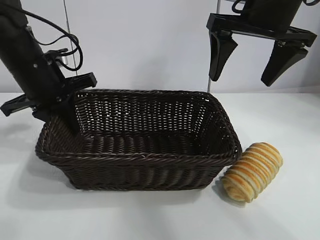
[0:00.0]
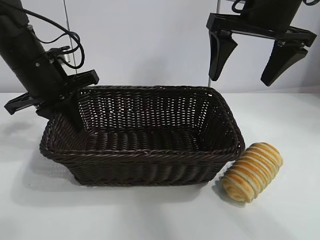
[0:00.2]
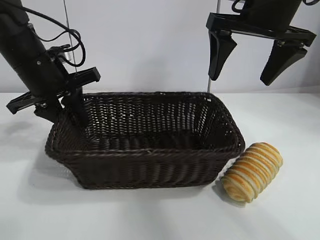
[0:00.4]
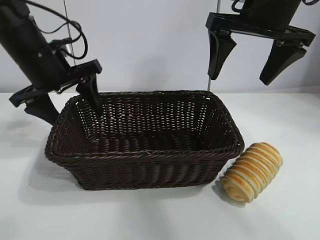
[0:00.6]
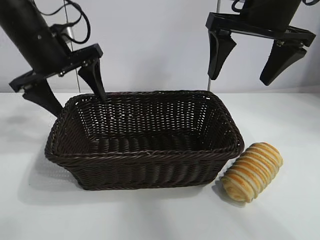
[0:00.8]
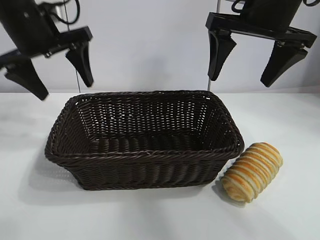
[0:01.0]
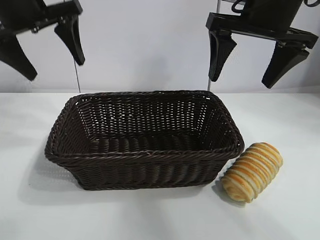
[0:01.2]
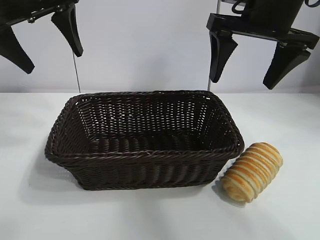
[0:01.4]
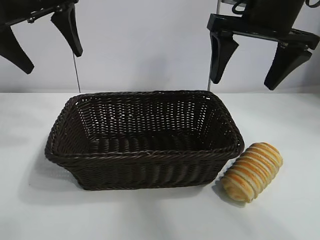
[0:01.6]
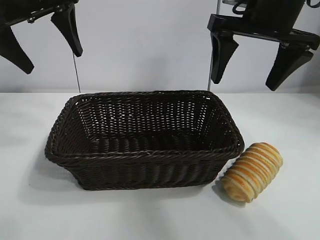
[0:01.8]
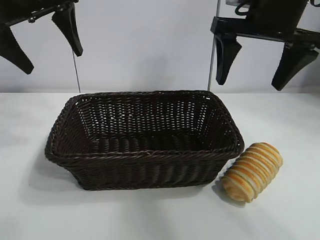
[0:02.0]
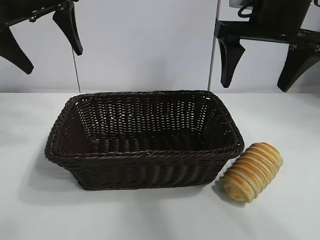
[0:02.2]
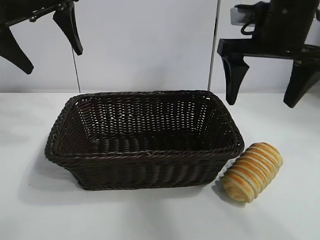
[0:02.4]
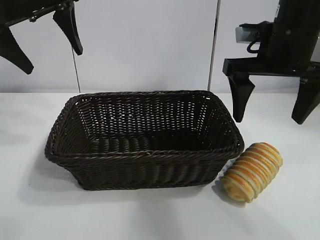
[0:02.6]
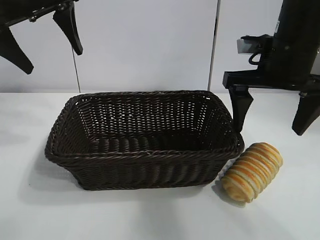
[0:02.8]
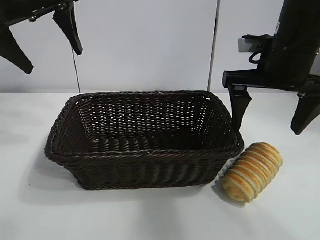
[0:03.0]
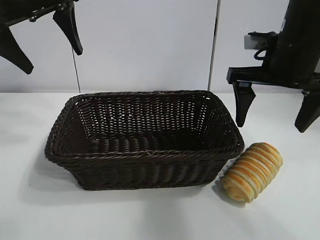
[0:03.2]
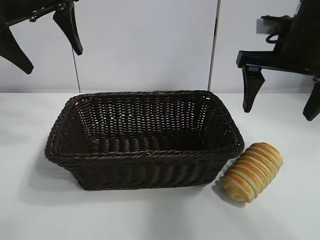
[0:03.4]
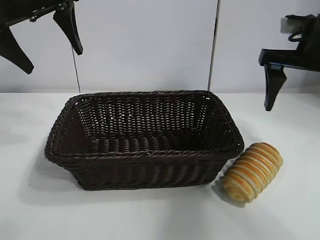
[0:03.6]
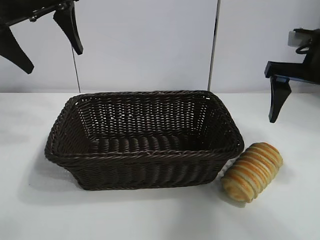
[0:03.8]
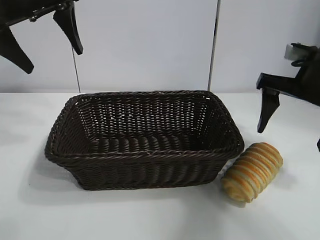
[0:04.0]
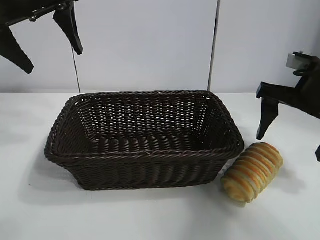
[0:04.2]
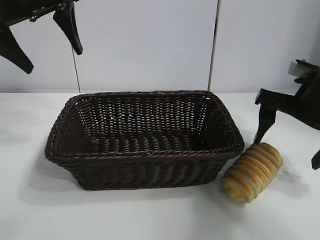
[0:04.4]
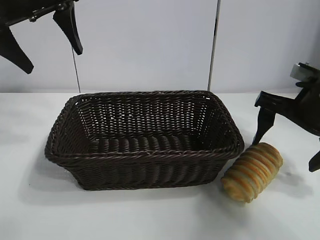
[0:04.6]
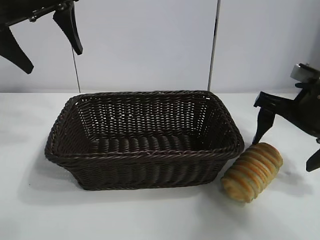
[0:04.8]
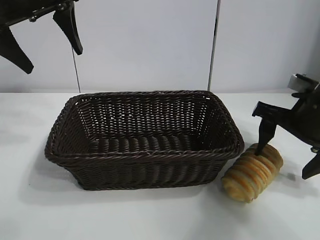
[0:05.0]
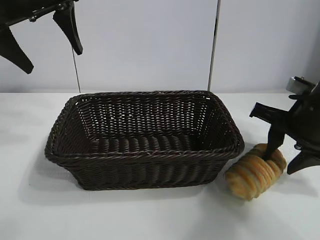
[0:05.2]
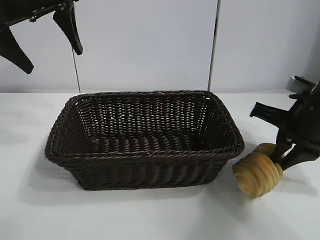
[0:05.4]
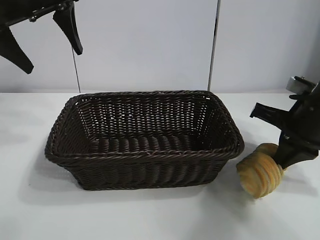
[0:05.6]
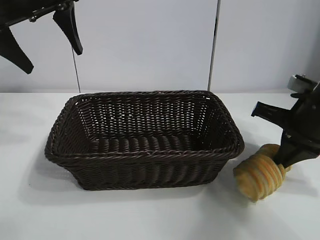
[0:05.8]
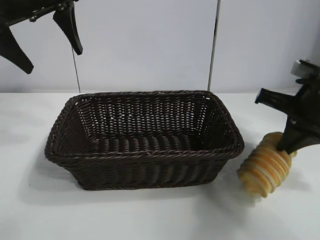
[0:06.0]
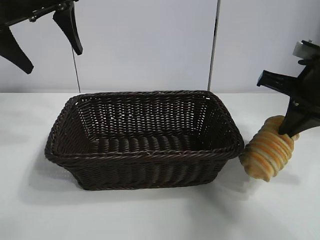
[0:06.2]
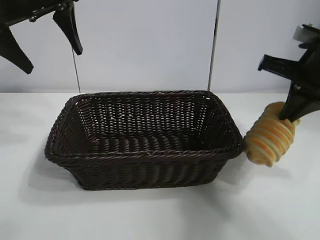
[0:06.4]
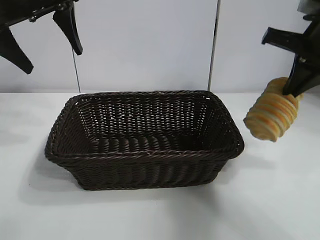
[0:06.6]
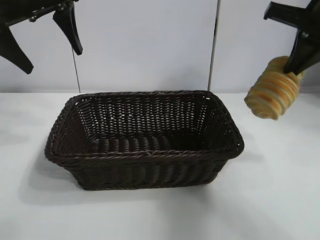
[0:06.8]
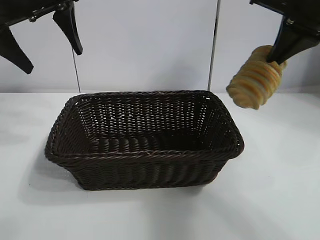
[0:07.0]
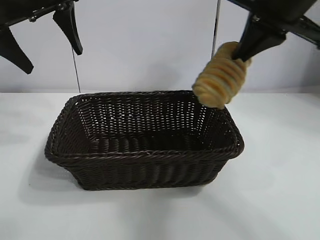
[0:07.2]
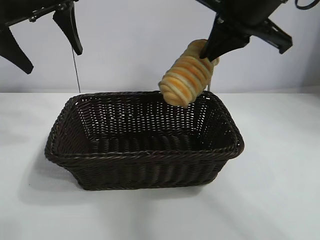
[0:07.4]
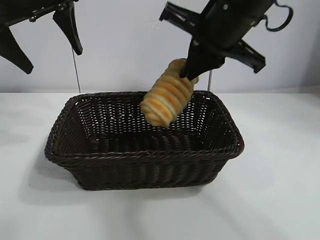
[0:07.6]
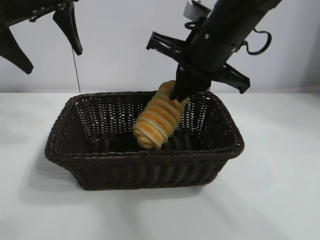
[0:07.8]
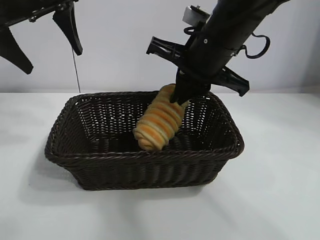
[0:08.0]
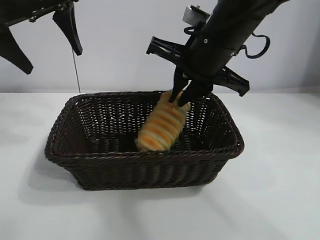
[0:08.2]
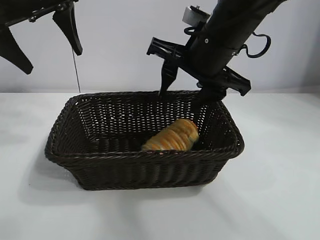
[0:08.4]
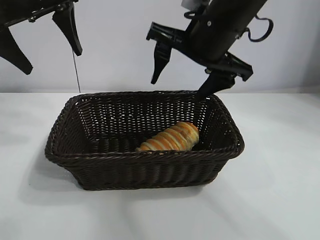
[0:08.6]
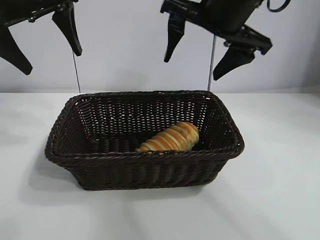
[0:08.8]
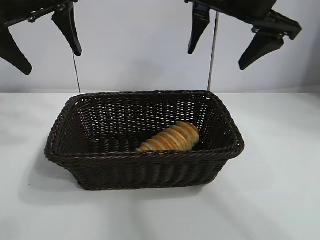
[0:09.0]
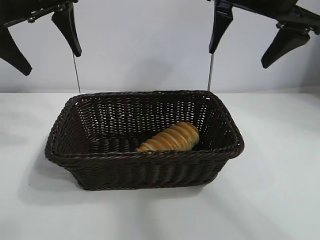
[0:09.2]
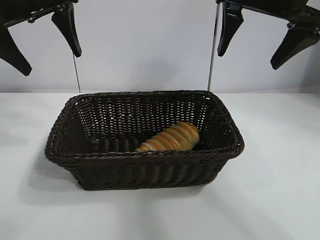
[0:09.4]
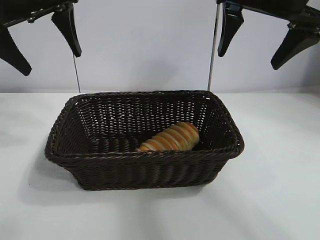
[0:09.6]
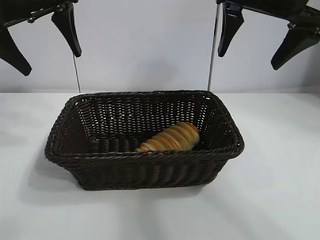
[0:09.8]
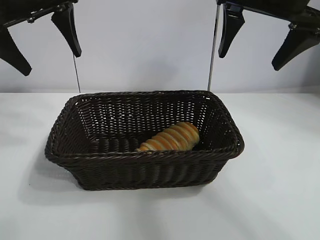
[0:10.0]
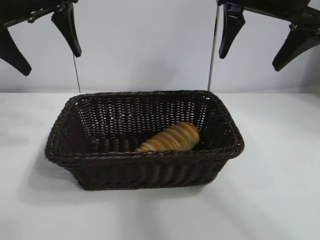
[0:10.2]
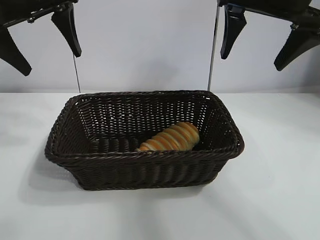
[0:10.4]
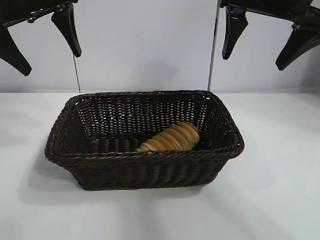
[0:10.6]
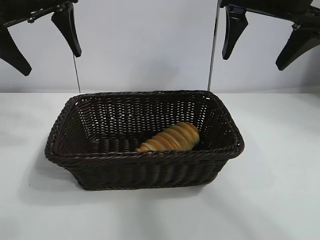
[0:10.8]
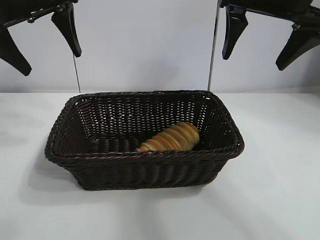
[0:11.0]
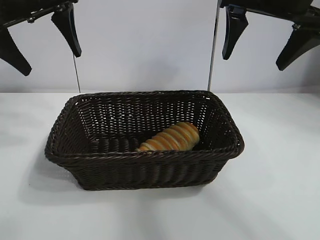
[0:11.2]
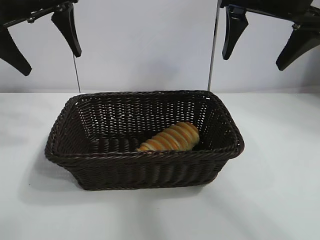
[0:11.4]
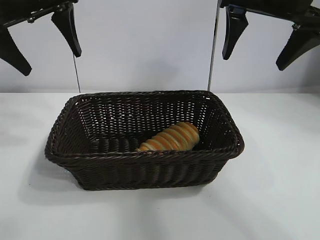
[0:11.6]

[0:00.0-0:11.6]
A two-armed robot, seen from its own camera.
Task of the whole recording: pick up the long bread and put it into the basket.
Step, 0:00.8 to 0:05.6: Grasp the long bread with right gripper.
Step, 0:05.8 to 0:08.4: Place the long bread in the basket with right gripper.

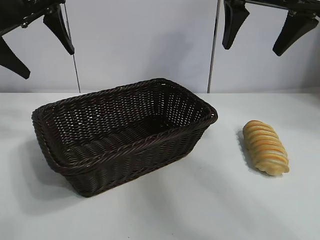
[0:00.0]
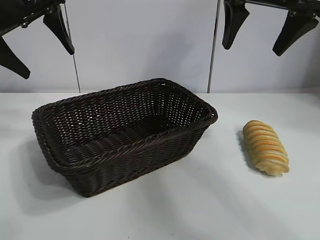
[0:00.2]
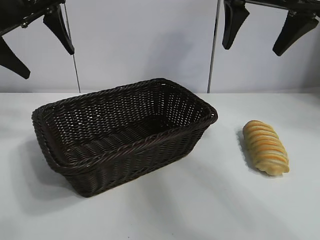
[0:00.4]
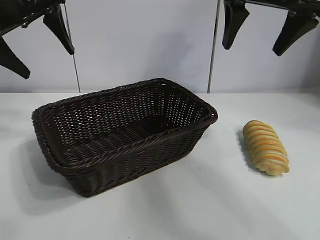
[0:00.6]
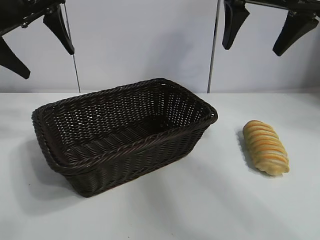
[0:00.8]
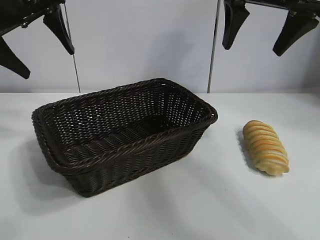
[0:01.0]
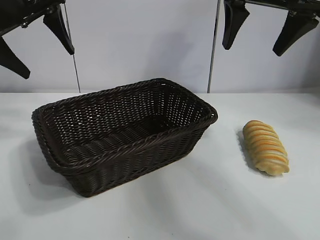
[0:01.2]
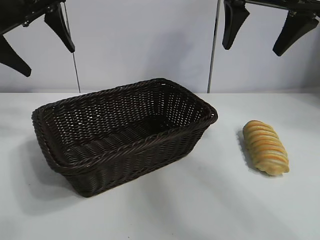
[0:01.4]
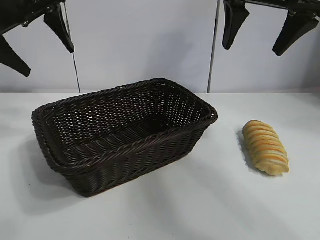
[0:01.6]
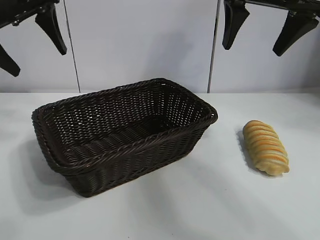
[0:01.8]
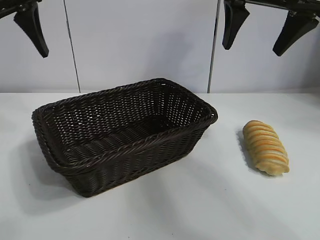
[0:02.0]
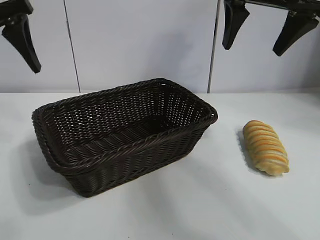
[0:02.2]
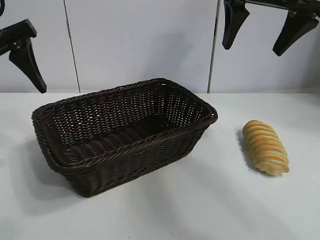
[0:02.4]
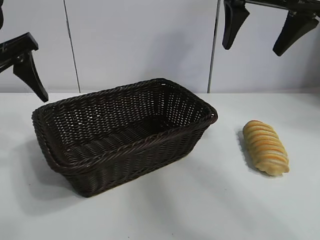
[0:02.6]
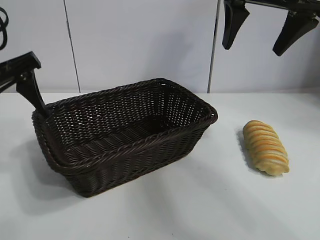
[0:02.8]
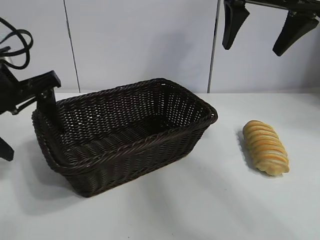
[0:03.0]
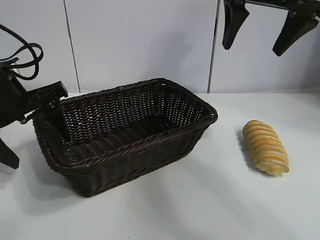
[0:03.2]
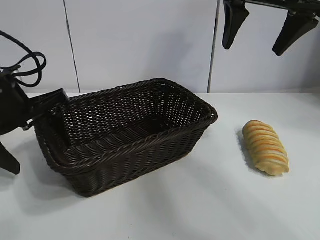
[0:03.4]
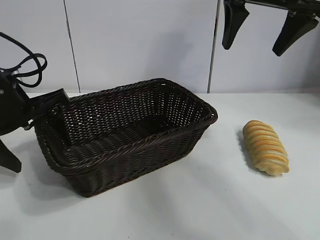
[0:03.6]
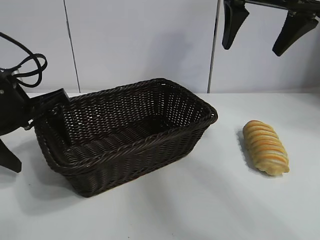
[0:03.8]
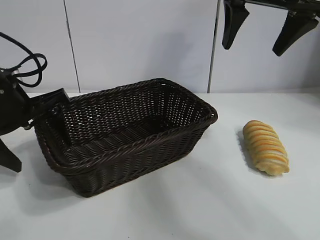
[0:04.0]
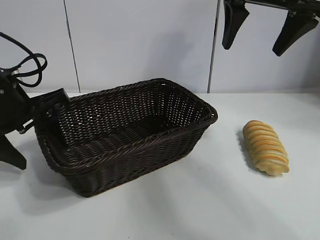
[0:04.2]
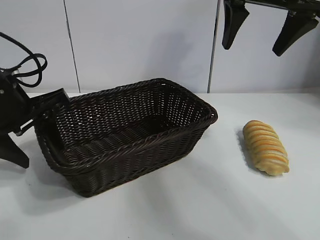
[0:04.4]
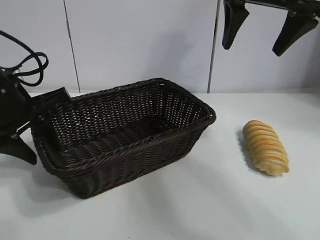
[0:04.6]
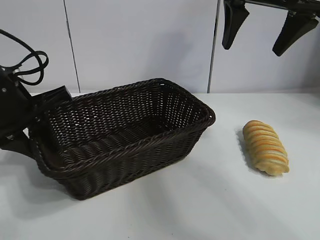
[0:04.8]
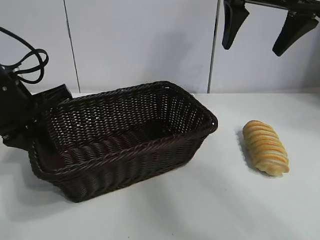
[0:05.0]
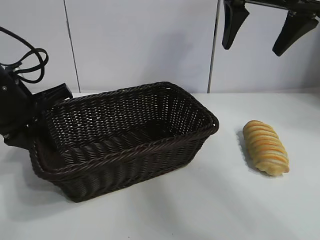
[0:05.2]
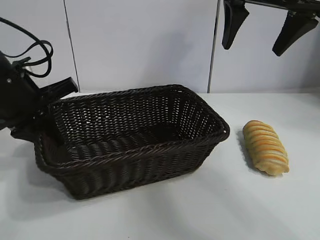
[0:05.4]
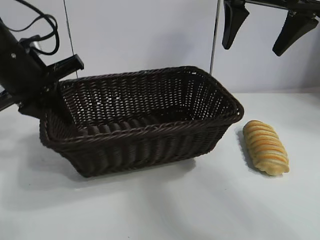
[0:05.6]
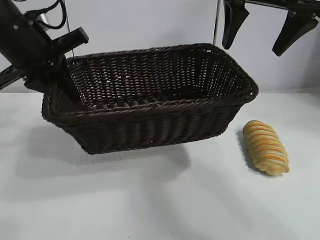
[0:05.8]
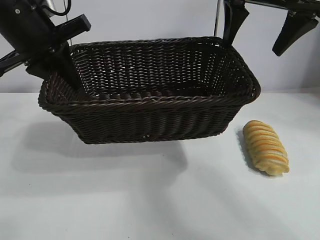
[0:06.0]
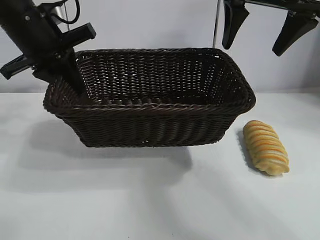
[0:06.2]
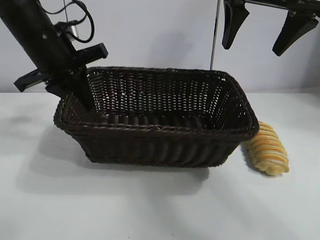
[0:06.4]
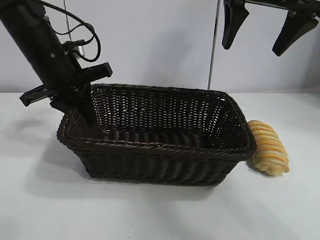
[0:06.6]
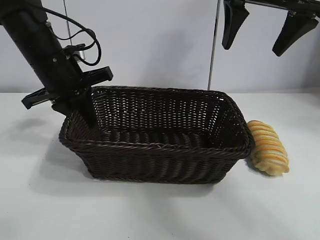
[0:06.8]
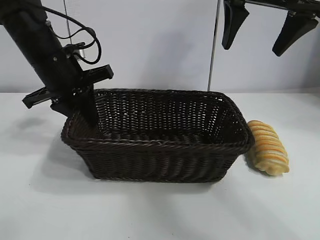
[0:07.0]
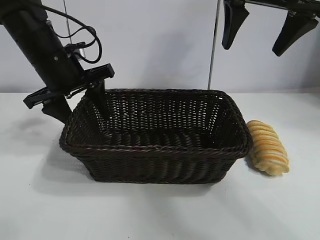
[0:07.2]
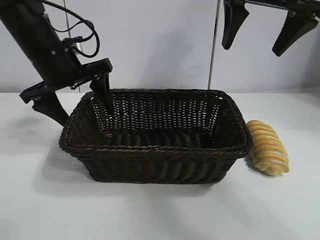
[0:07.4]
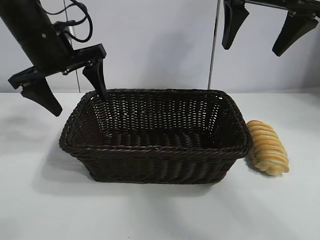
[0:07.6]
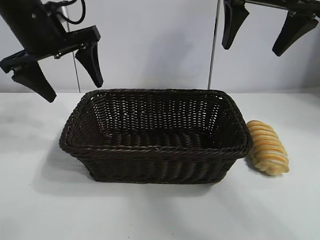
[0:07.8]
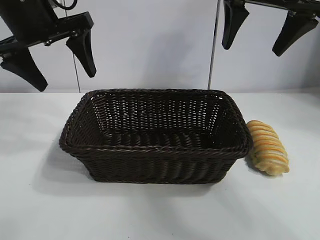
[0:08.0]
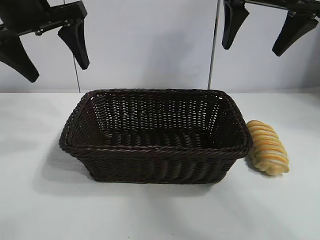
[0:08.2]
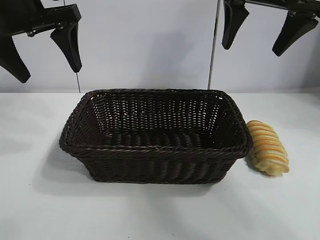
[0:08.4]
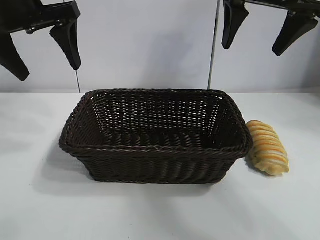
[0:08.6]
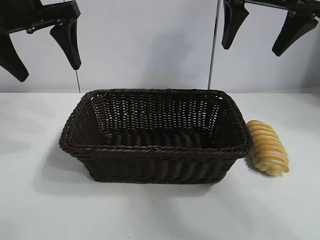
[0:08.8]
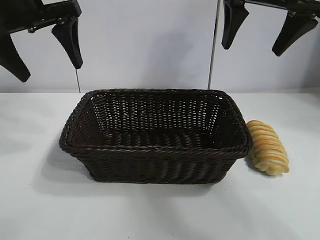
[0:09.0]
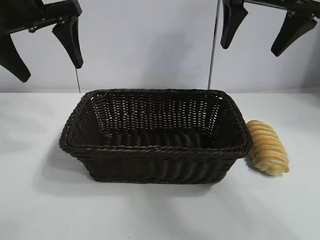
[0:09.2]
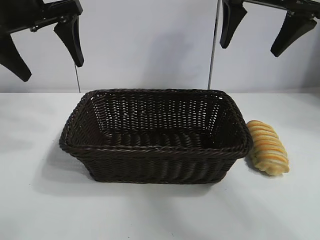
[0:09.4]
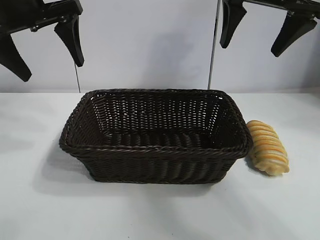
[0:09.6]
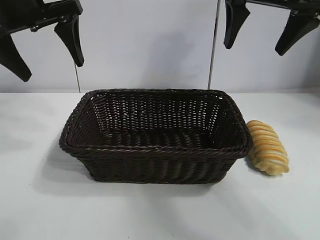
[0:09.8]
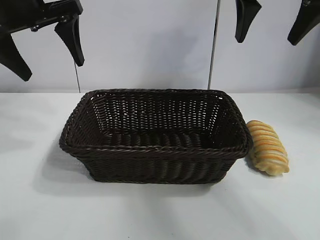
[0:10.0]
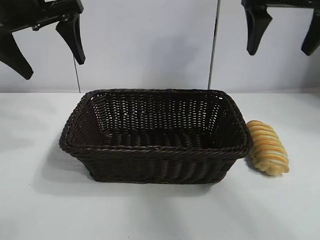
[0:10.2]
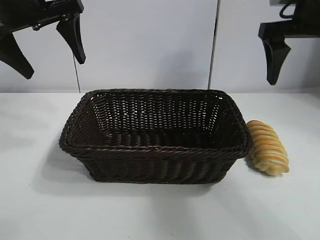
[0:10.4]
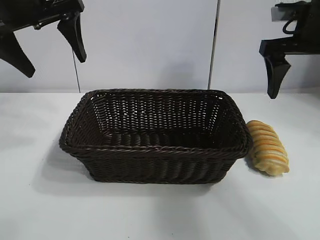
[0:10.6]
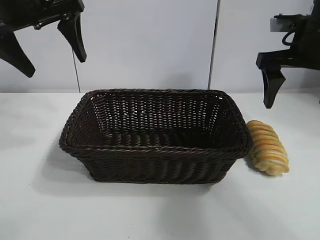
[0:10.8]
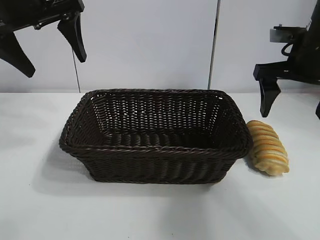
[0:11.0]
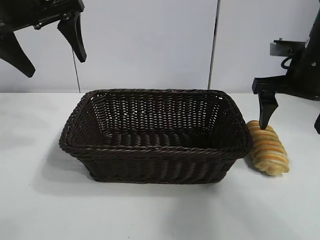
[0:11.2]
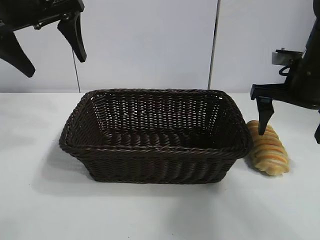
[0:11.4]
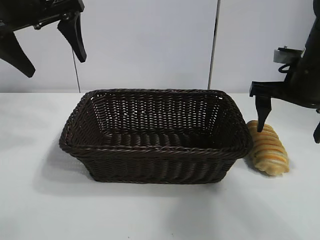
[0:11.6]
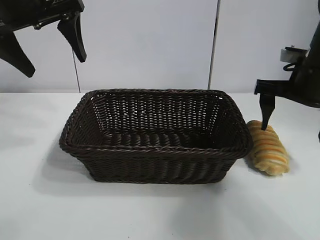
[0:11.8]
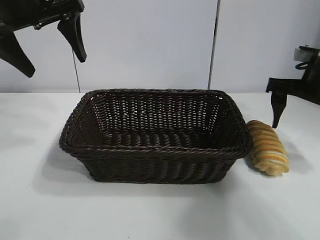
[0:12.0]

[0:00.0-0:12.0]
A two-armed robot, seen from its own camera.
Task of the whole recording: pick up the long bread and put it into the basket.
Step, 0:01.4 to 0:05.0: Grasp the basket with the left gripper.
Step, 0:05.2 to 0:07.2: Place the basket in the center of the table with the left gripper.
